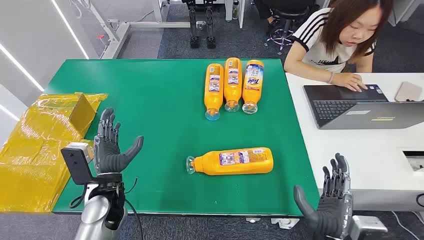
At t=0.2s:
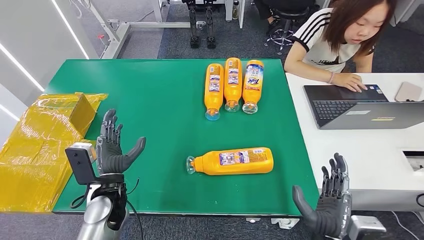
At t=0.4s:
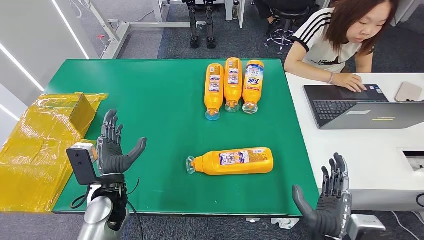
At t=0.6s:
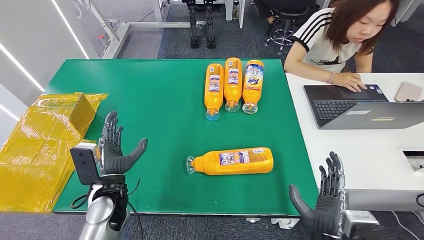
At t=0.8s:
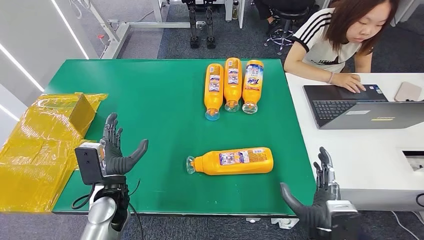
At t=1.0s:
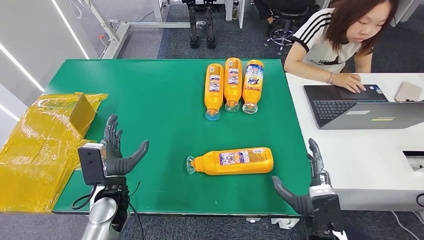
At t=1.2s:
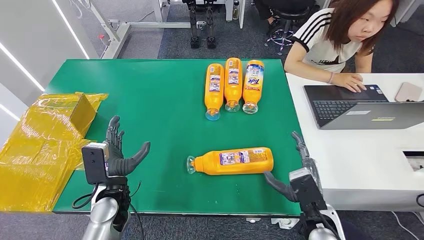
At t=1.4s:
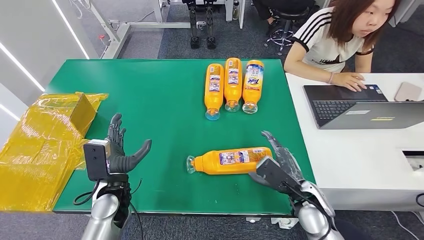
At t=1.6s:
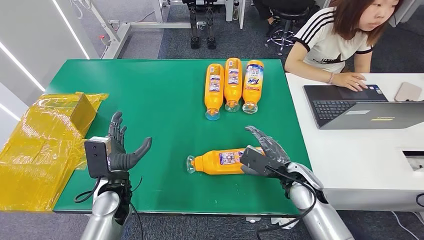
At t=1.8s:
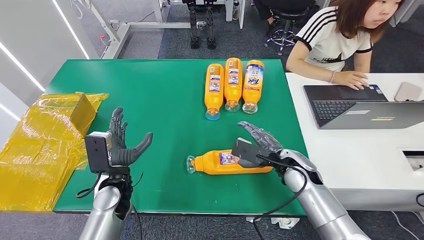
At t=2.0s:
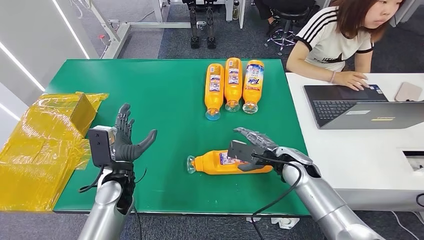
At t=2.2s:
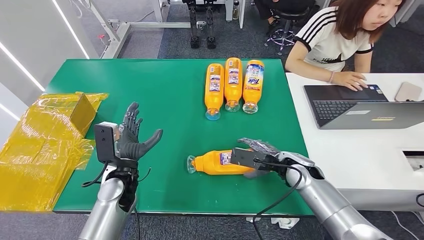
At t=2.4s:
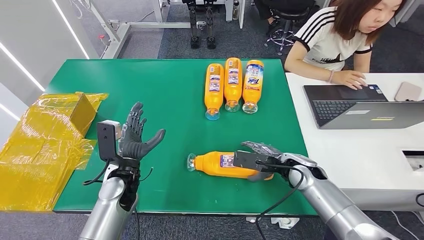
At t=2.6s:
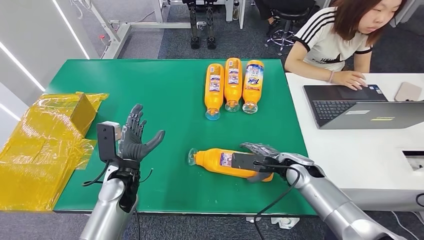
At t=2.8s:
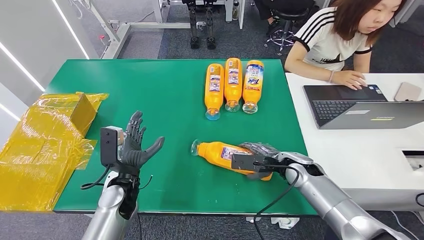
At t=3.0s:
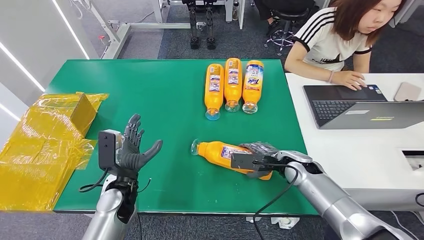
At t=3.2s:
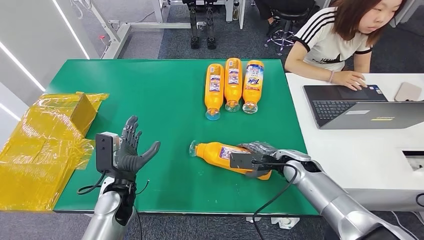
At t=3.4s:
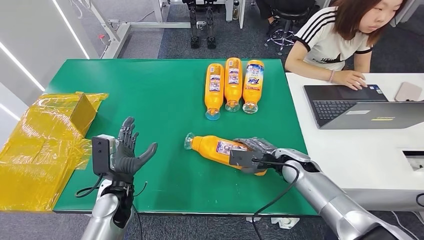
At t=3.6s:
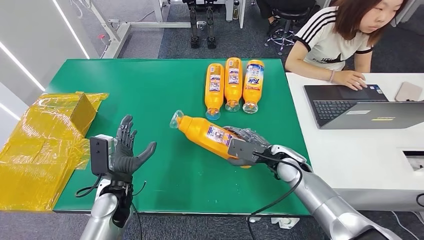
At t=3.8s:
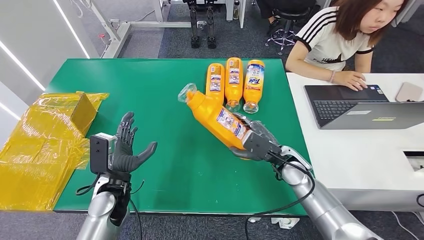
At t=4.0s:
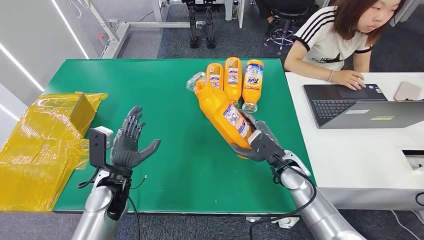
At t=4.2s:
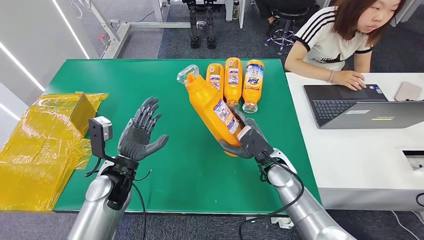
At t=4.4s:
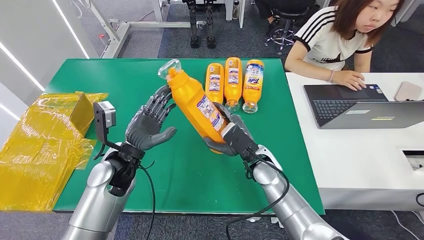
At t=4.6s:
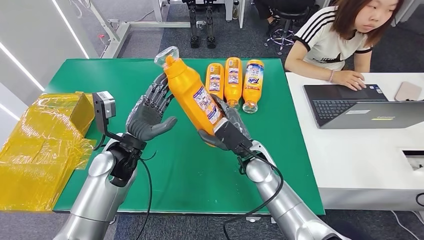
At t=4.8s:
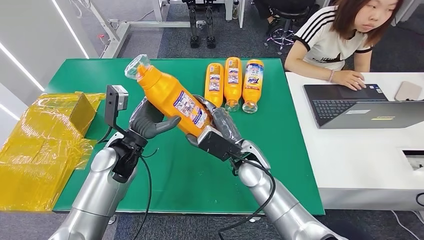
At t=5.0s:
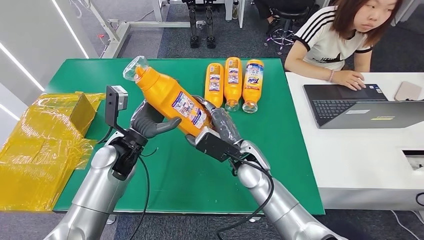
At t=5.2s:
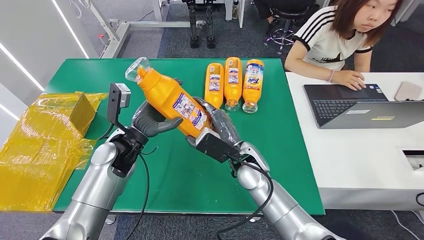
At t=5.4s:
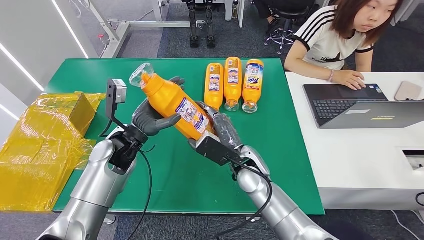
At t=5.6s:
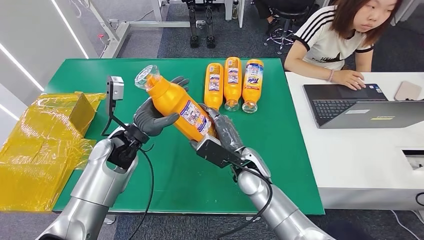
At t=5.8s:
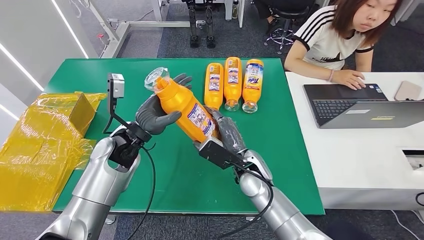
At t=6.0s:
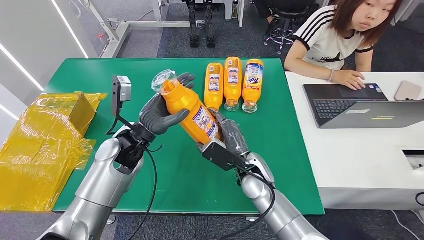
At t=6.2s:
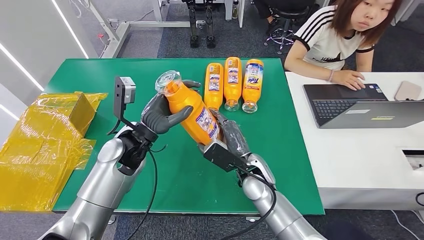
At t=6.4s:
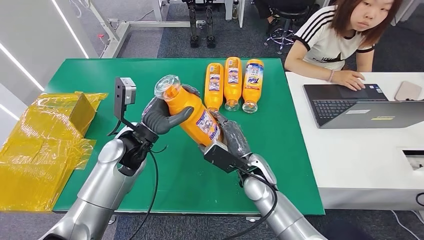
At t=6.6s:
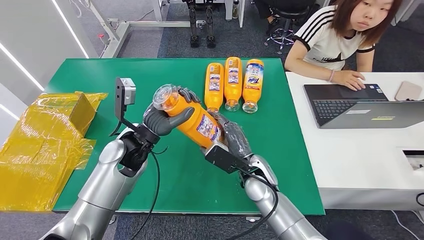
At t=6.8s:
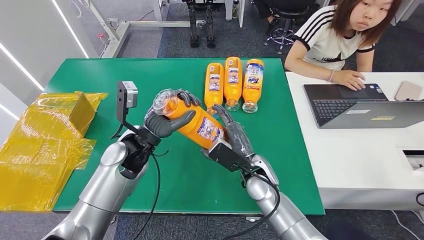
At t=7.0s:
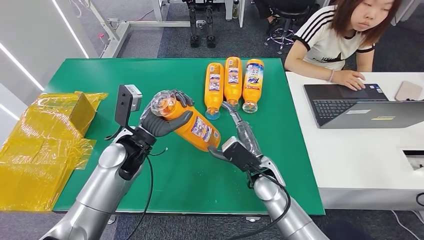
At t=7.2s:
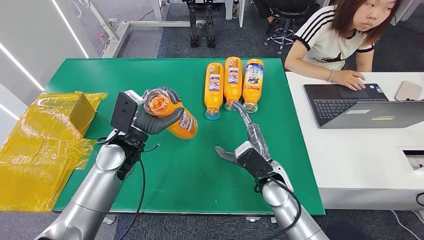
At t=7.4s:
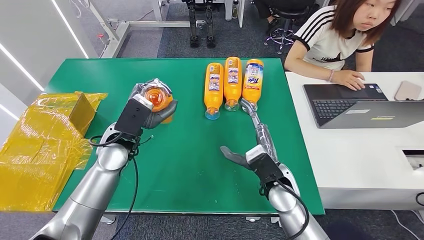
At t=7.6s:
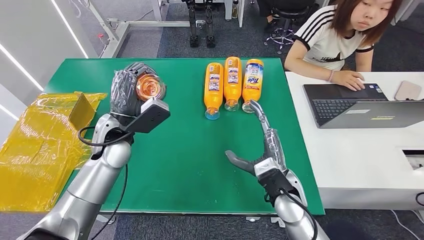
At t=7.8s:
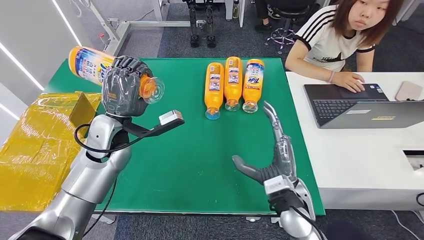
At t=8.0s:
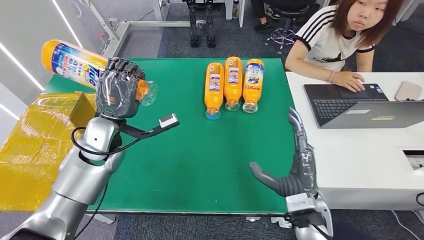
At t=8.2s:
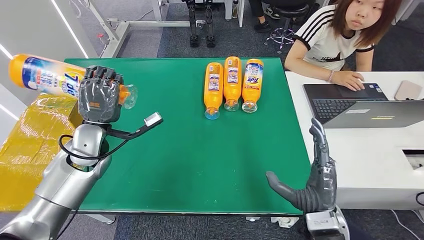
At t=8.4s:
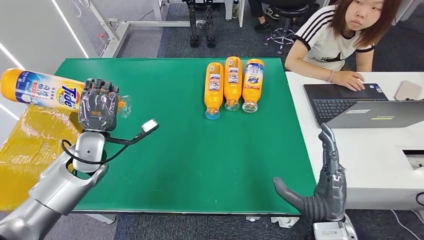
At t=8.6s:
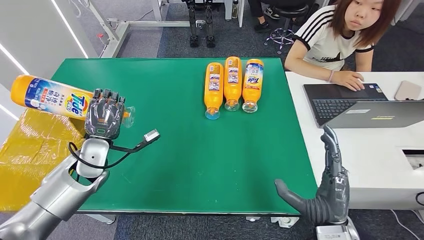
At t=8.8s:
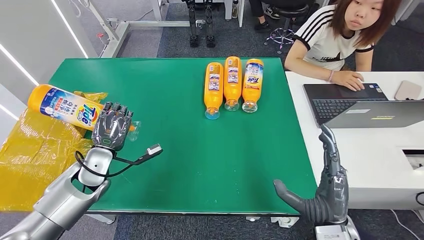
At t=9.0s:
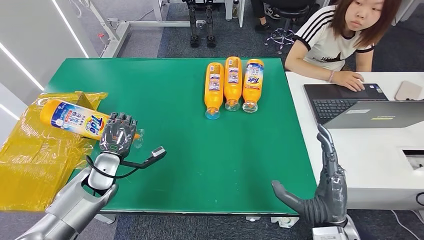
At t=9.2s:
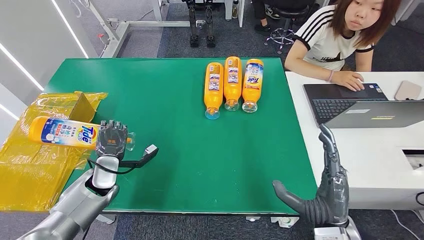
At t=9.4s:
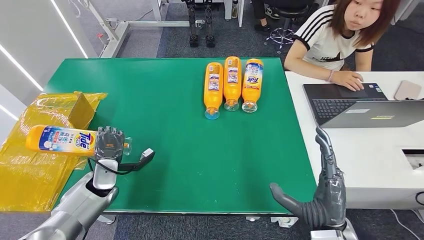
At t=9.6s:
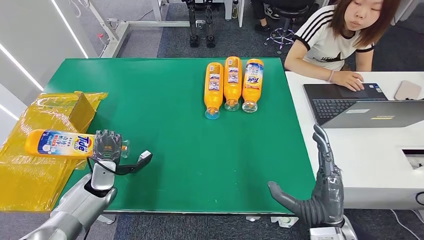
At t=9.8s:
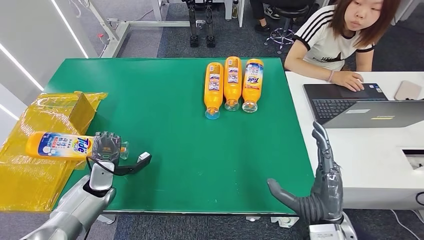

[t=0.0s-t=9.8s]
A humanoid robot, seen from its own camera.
Step, t=0.0s to t=4.2s: Pick up the bottle from the table.
t=1.4s to t=2.8s: The right hand is displaced forward by some 10 cm.
t=2.8s to t=4.2s: The right hand moves to the left, some 5 cm.
t=8.4s to t=9.8s: The left hand moves downward, roughly 15 cm.

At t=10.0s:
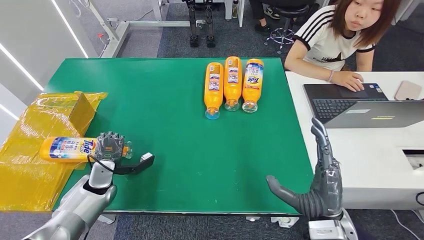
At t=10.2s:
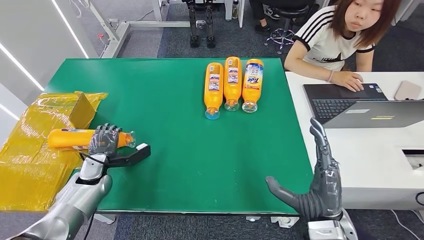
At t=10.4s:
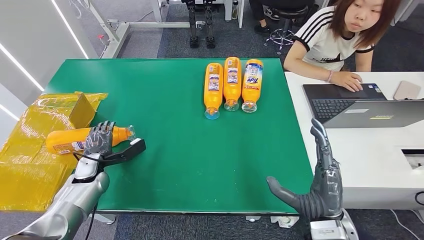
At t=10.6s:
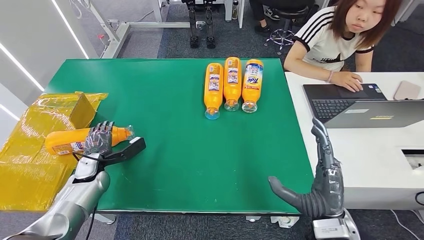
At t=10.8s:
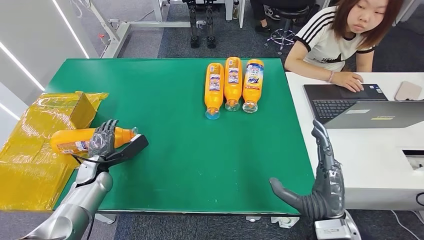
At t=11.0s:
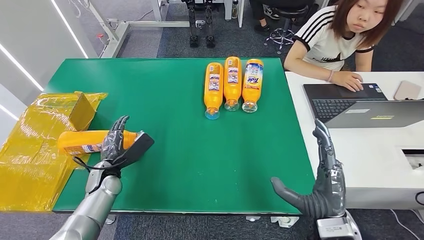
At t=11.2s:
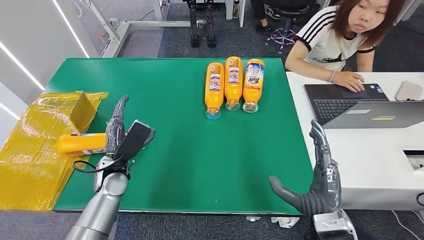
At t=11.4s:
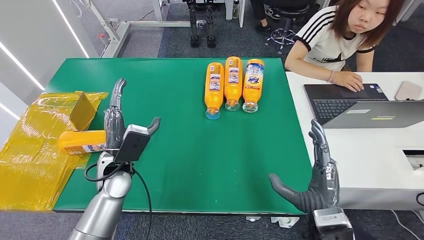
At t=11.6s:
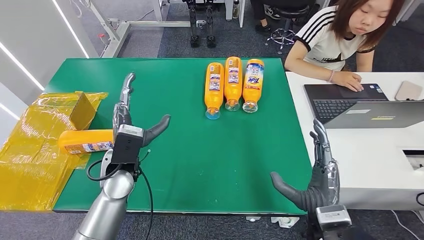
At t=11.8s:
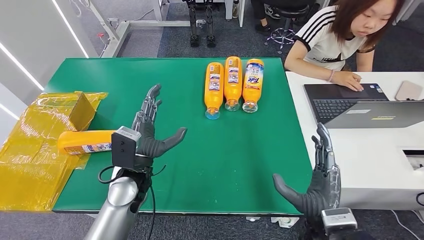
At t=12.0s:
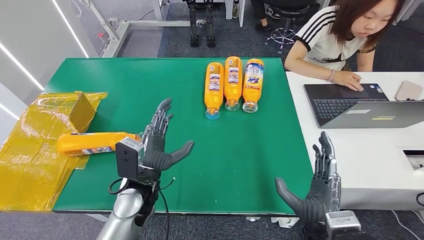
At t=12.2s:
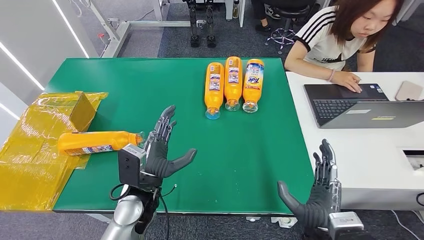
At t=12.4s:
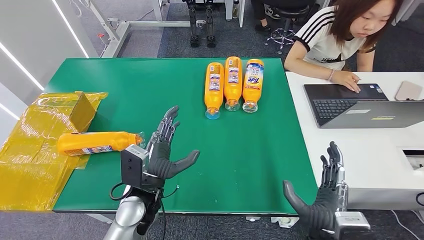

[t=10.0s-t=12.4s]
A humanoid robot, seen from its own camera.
Step, t=10.0s to t=12.4s: Turn the bottle to the front side.
t=10.0s to t=11.2s: The left hand goes approximately 10 cm to the right and upward.
t=11.2s to t=12.4s: The left hand is displaced to the right and backward by about 15 cm.
